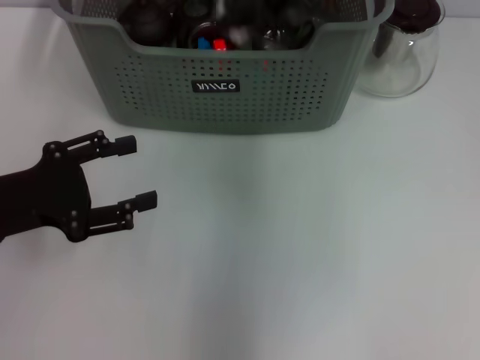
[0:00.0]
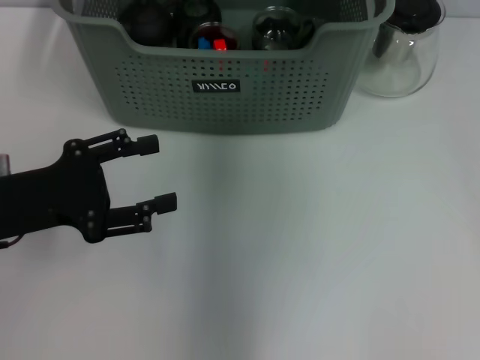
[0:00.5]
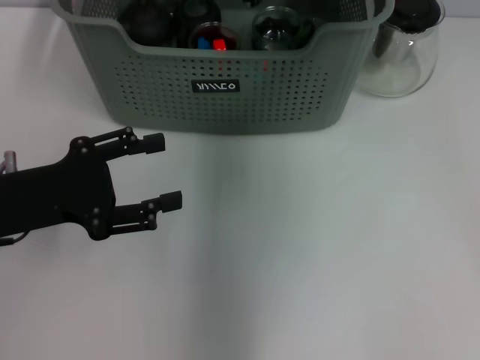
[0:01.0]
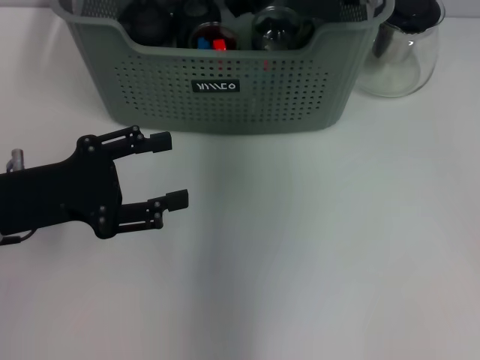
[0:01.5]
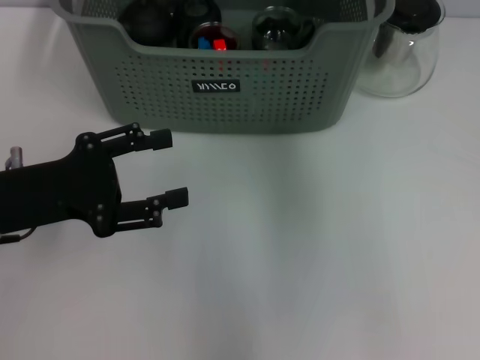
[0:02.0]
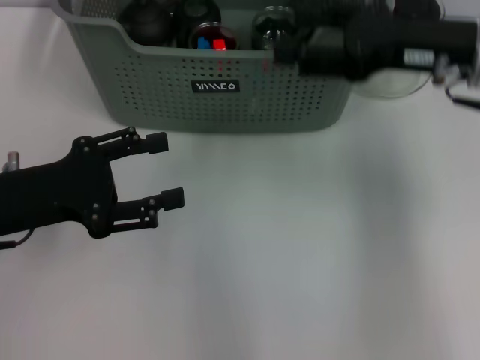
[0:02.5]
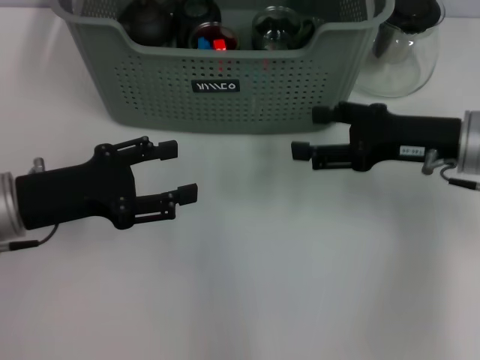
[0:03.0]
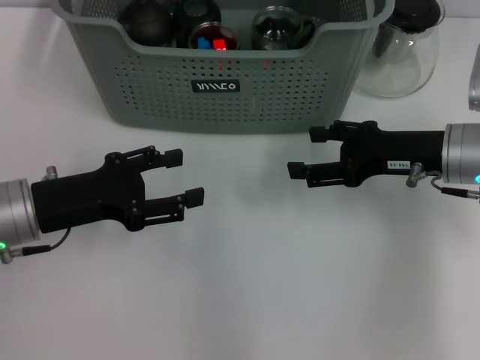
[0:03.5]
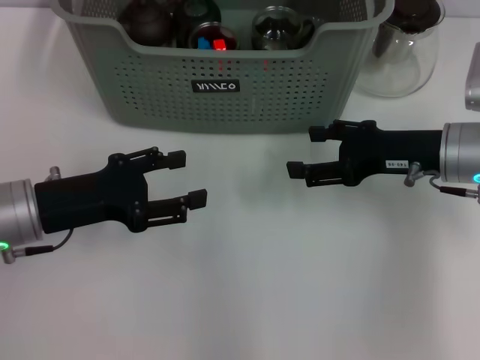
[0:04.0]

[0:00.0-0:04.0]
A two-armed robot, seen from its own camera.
Task of the whole recording: pick up the teacup on the table and place it into the storage bin, pick up the block on the table and place it into the storage bin.
Step, 0:00.0 to 0:01.0: Place the white block in the storage box with right gripper.
0:00.0 to 0:02.0: The right gripper goes about 5 cm downward, and opens its fingers.
0:02.0 to 0:04.0: The right gripper is displaced downward, to the right and backward by some 20 cm.
